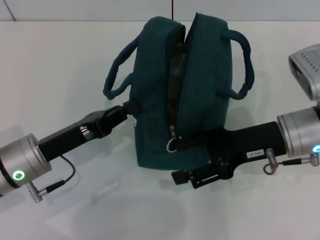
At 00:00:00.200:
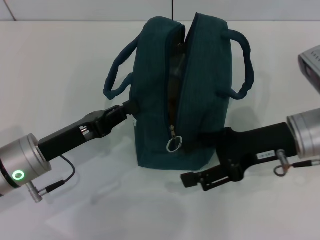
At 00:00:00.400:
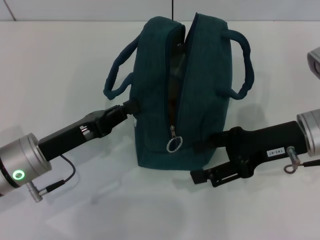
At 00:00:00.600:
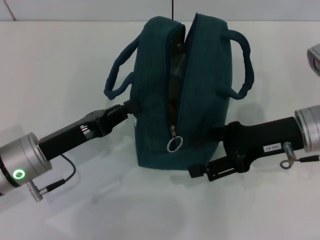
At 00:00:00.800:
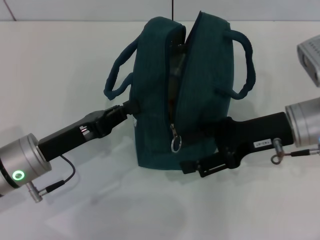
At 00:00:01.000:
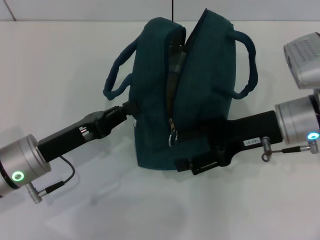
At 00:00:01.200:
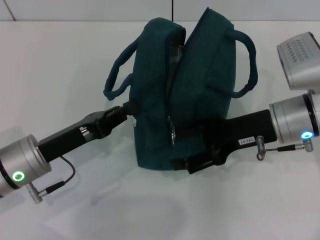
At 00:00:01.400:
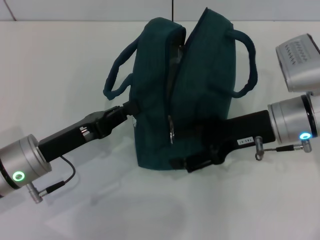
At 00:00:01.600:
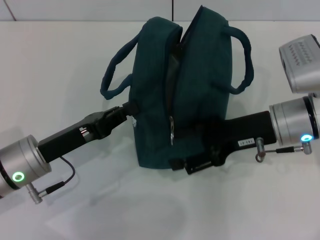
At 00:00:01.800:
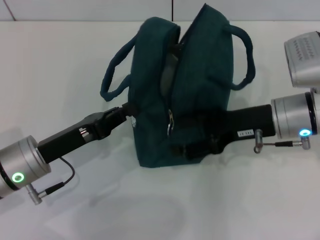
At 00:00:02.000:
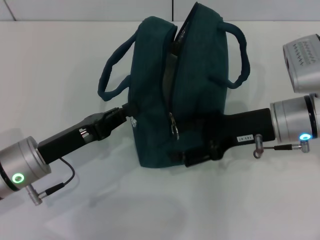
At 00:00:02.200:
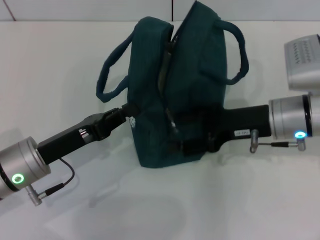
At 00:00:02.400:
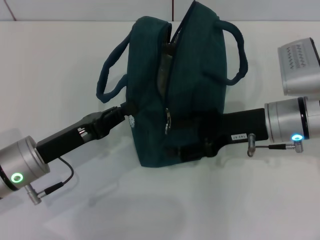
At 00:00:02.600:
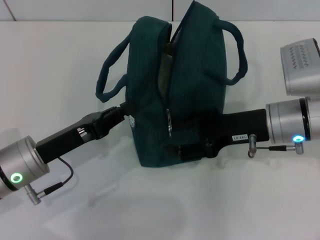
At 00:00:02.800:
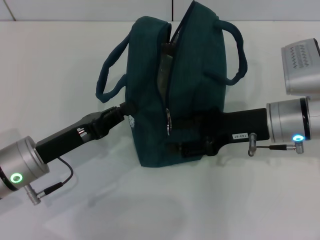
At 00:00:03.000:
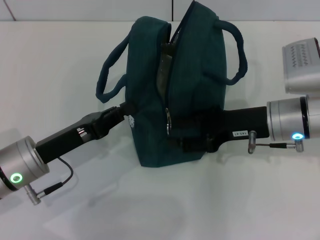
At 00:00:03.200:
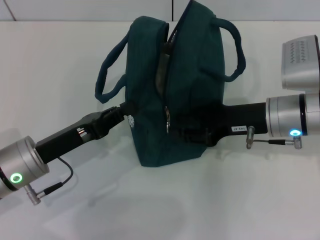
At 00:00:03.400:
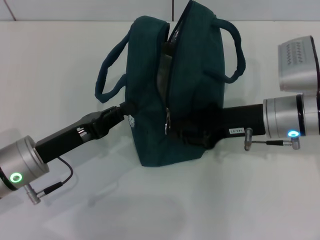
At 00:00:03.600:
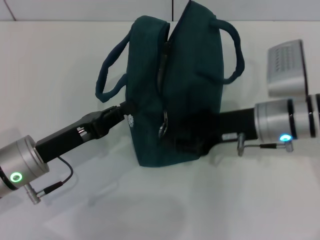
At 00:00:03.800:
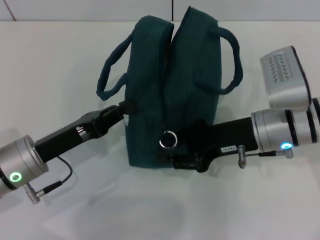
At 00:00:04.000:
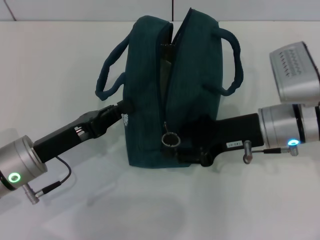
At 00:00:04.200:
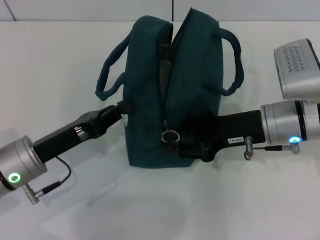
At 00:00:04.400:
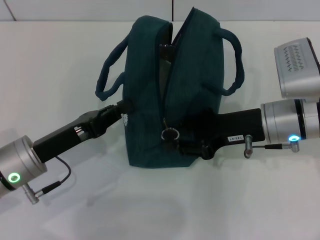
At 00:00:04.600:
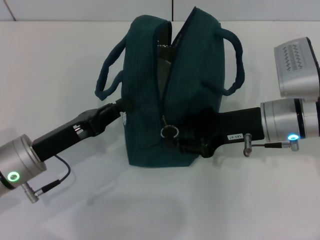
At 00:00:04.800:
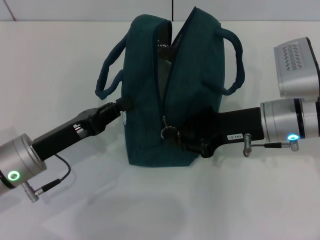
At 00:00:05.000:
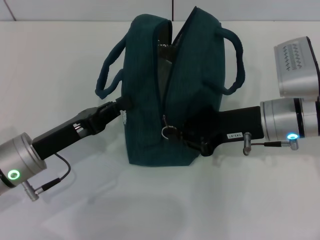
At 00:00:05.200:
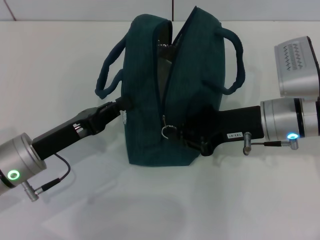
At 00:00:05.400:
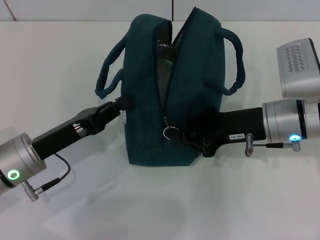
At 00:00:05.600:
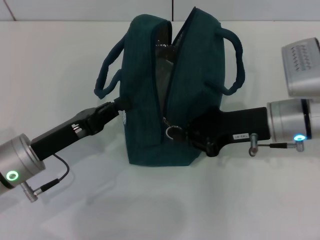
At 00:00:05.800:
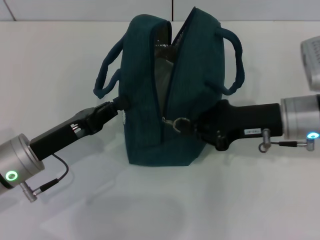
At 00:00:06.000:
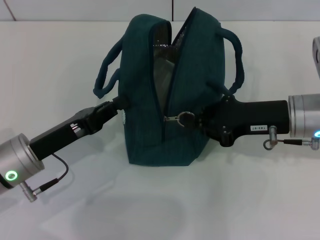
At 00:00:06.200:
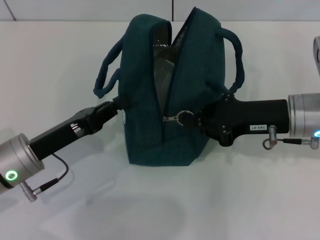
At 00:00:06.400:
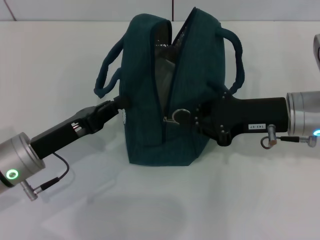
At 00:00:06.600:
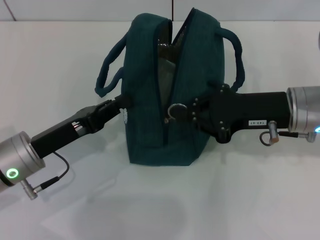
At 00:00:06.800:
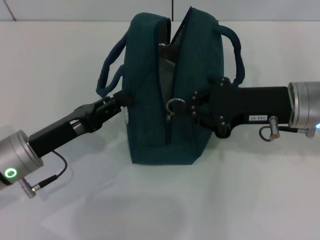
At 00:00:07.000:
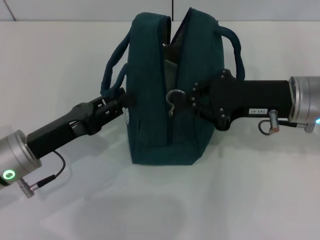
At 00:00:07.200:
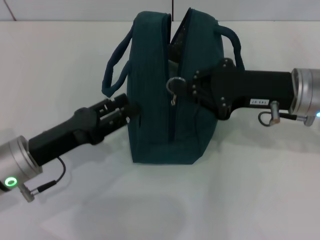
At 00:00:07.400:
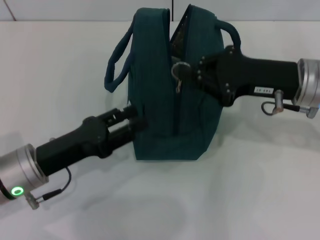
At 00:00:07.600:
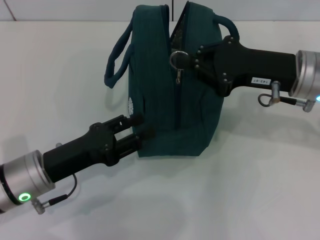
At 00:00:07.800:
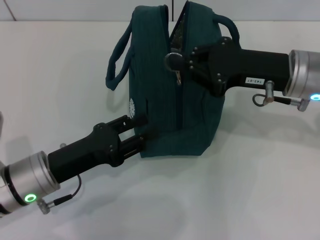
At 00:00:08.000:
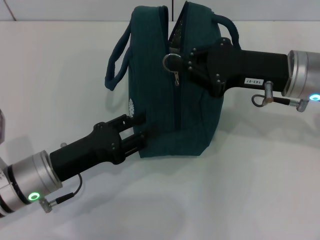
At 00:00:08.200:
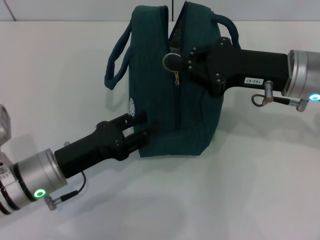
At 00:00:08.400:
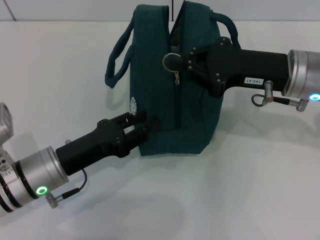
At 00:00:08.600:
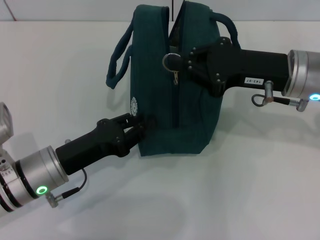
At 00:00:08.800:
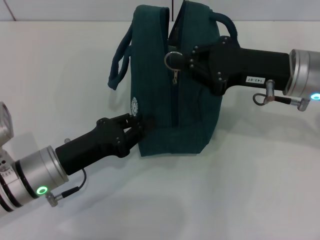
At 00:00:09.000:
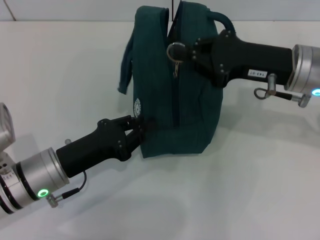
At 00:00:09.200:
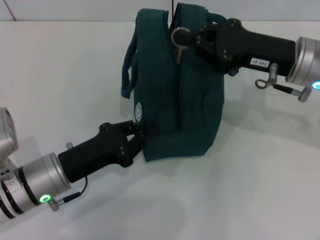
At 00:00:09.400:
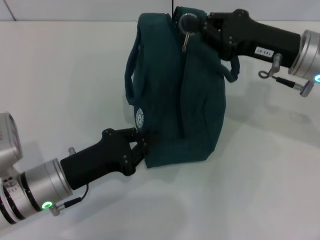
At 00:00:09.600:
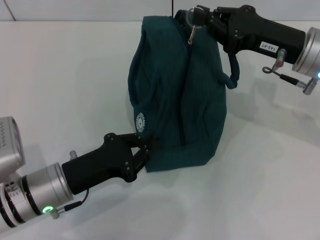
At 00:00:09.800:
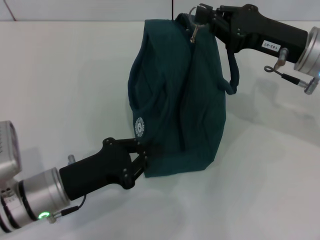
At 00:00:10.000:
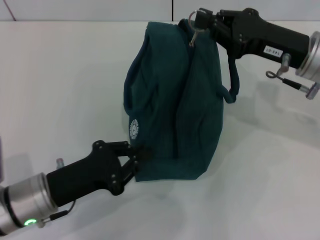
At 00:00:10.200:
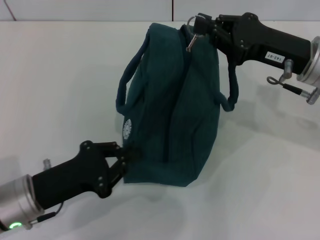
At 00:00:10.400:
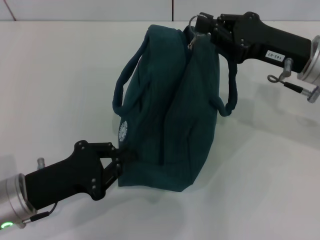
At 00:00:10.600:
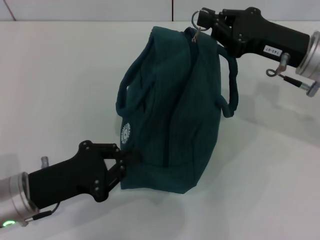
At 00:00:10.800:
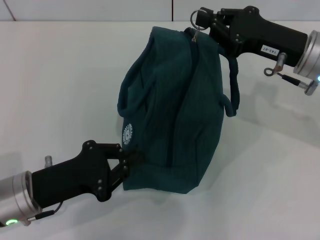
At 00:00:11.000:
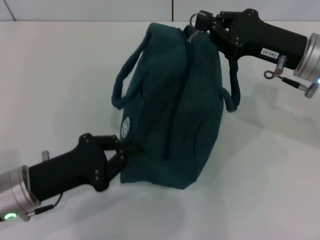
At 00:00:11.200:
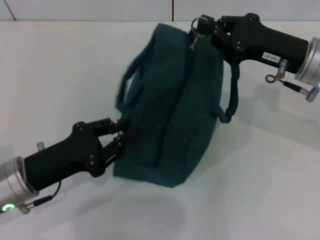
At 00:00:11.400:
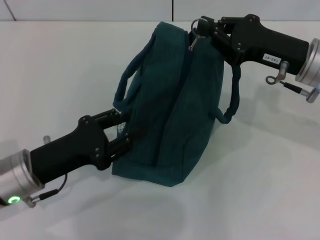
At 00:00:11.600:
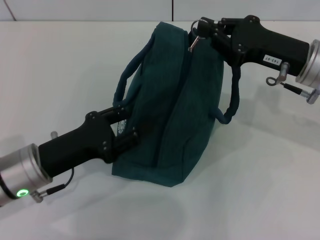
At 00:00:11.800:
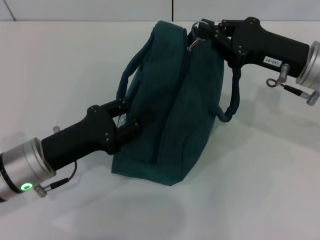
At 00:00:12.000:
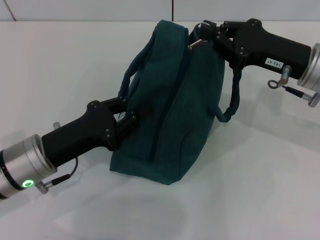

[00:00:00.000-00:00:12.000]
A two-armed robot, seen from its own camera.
00:00:00.000 to 00:00:03.000: The grippers stay close to where they were, moving slightly.
00:00:03.000 to 00:00:04.400: The right gripper closes up.
00:00:04.400 to 00:00:06.000: The grippers move only a little.
00:00:06.000 to 00:00:07.600: The left gripper opens.
00:00:07.600 to 00:00:09.000: The left gripper closes up.
00:00:09.000 to 00:00:10.400: The left gripper ends up approximately 5 cm from where it was.
00:00:10.400 to 00:00:12.000: The left gripper changes place by roughly 5 cm, and opens.

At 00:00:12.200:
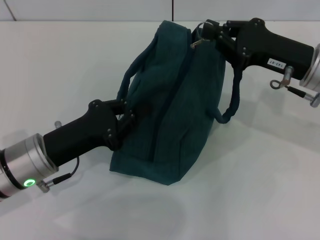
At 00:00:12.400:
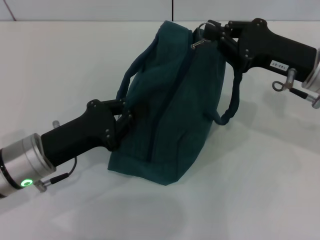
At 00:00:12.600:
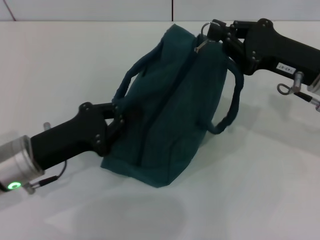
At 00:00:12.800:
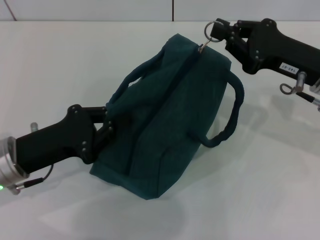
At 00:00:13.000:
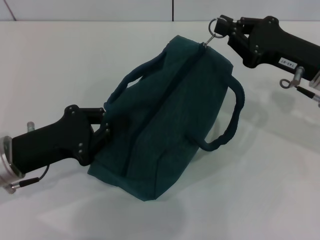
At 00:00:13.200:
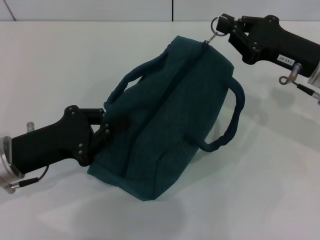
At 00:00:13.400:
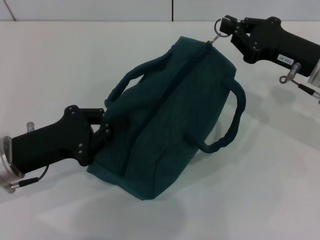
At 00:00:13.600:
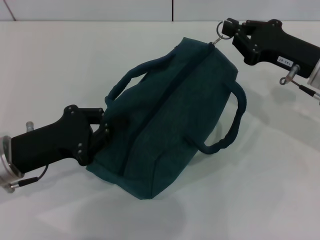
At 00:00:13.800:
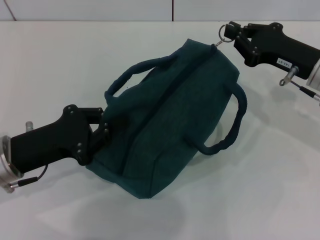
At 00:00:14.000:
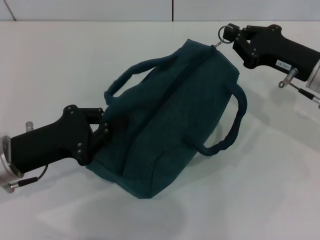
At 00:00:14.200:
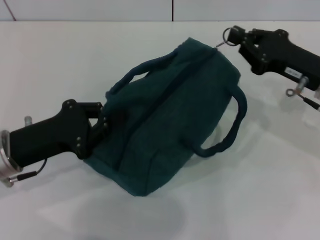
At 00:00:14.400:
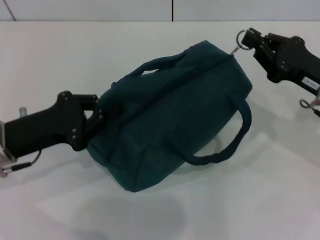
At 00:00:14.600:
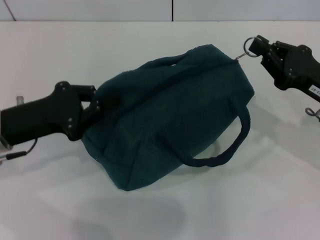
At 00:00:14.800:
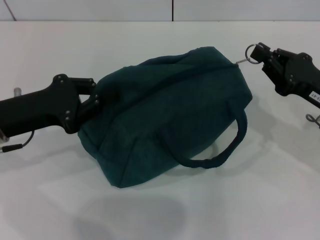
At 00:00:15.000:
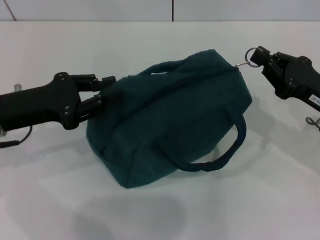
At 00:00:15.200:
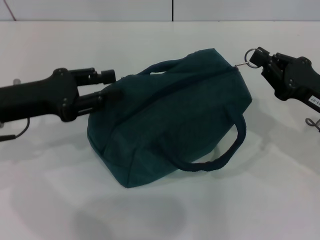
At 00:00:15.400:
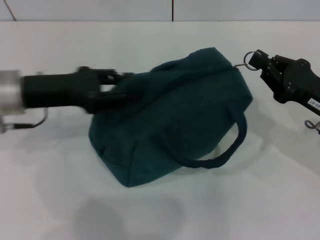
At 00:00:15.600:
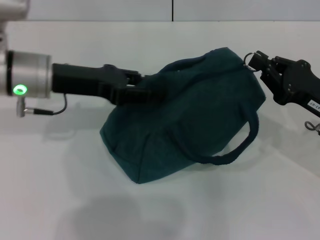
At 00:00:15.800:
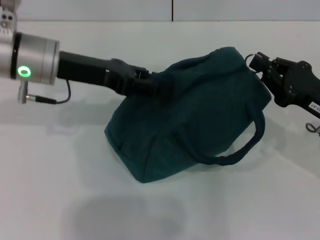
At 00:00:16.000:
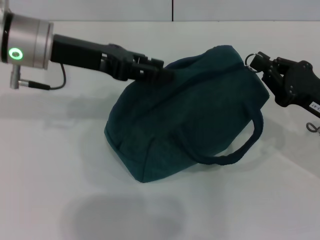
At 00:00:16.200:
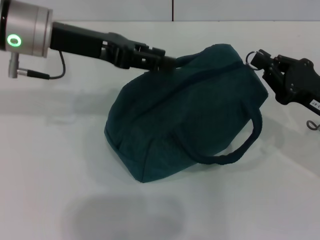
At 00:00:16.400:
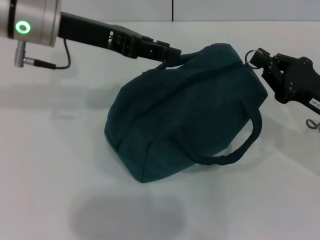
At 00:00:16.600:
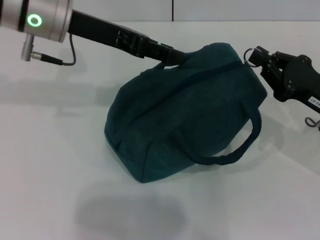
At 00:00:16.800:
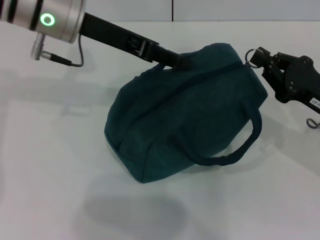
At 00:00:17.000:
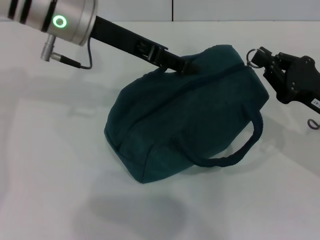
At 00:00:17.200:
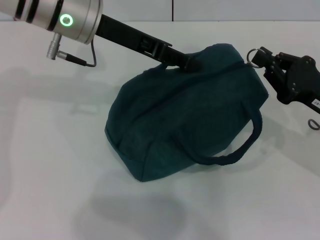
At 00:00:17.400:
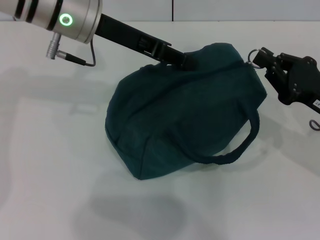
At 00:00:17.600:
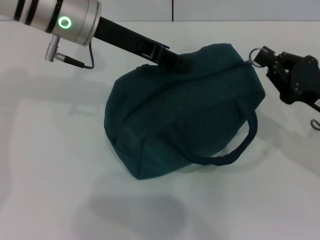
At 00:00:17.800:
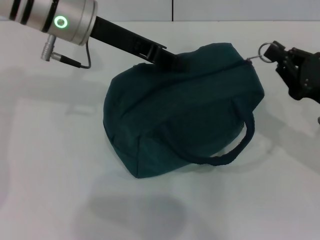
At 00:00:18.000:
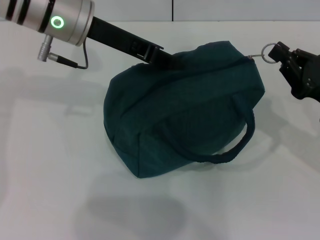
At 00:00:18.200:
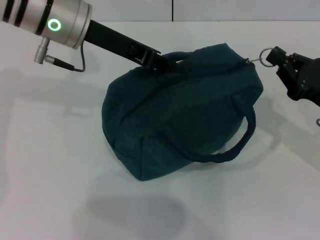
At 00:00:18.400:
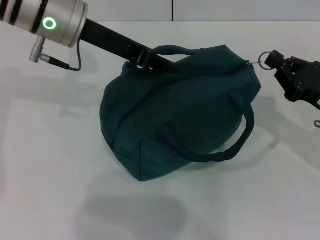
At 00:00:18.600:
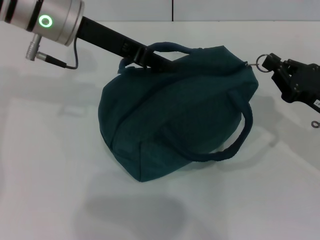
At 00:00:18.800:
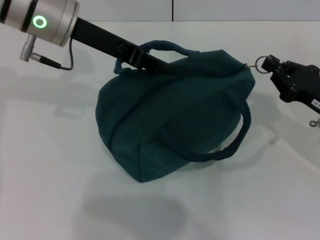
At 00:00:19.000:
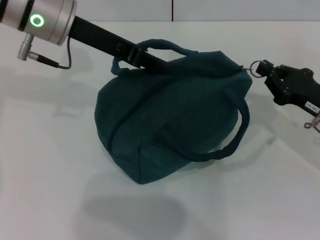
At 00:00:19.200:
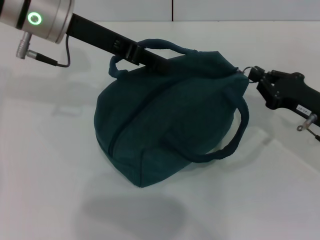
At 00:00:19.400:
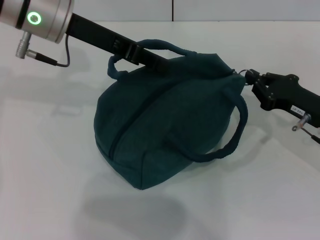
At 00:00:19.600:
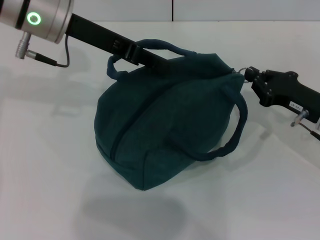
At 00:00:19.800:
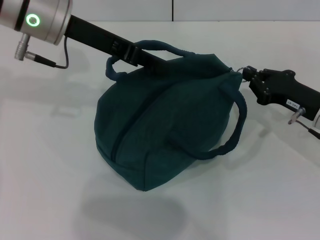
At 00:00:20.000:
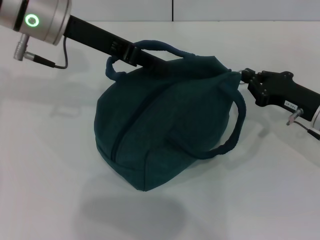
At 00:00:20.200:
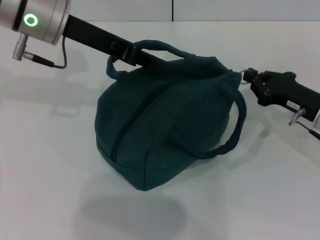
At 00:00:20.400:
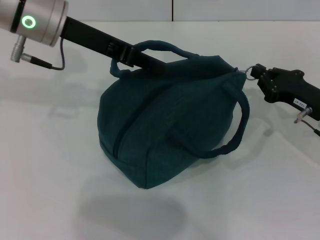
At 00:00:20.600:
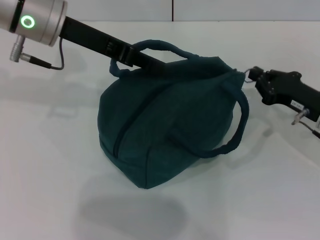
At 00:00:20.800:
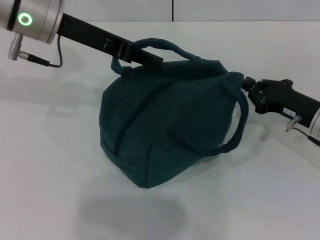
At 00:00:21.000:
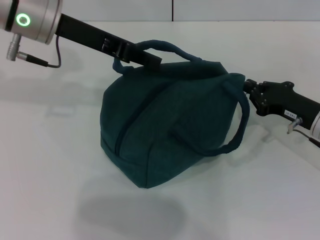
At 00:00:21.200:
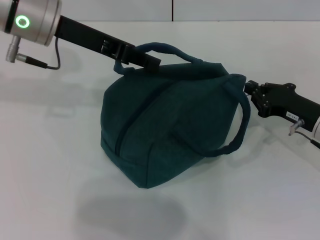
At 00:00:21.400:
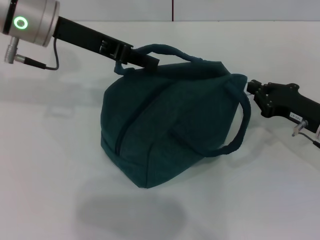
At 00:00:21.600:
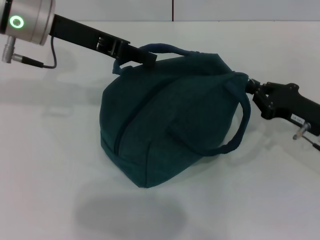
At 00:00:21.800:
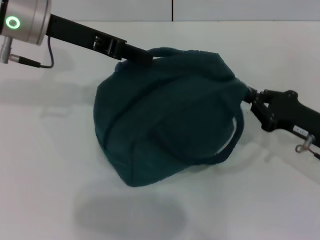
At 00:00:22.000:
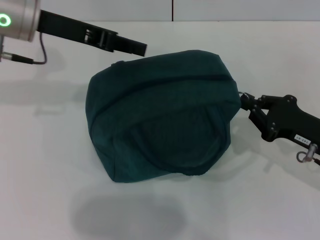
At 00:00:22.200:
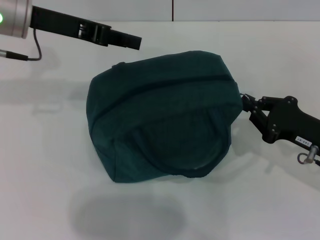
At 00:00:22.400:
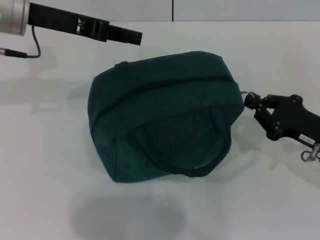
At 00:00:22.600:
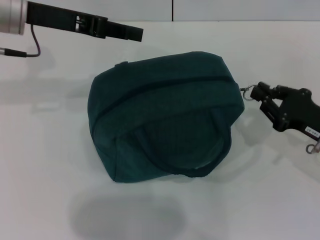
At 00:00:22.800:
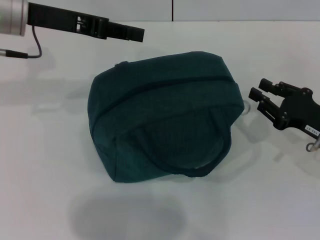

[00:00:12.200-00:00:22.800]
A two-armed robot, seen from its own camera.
Step, 00:00:12.200 to 00:00:21.800: Hold the lunch bag with your left hand.
00:00:12.200 to 00:00:13.800: The grippers make only small movements.
00:00:13.800 to 00:00:15.200: The right gripper shifts roughly 5 cm backward; the left gripper is displaced forward by some 5 cm.
00:00:15.200 to 00:00:16.800: The left gripper heads to the right, upward and forward, covering roughly 20 cm.
00:00:16.800 to 00:00:18.200: The left gripper closes its fingers.
00:00:18.200 to 00:00:19.800: The grippers make only small movements.
00:00:19.800 to 00:00:22.800: The grippers stay close to where they were, moving slightly.
